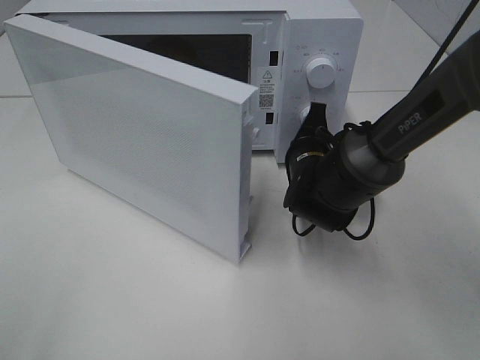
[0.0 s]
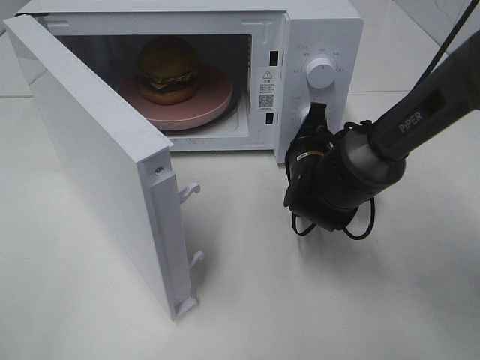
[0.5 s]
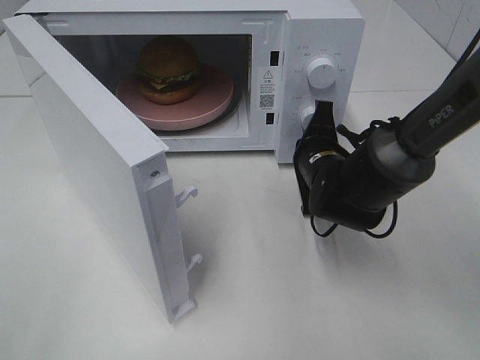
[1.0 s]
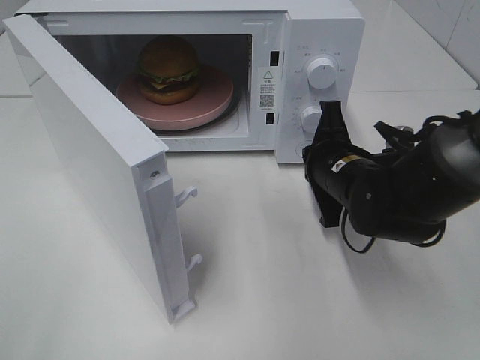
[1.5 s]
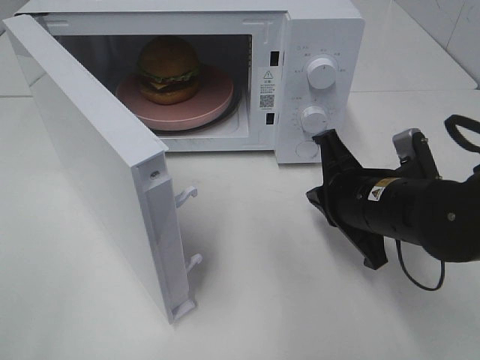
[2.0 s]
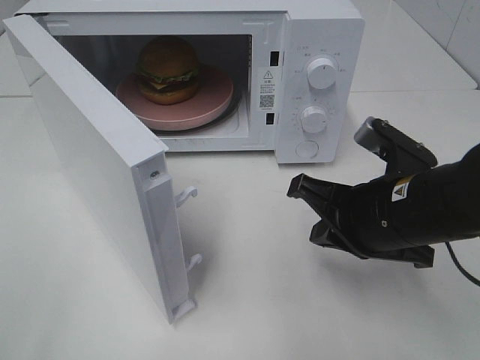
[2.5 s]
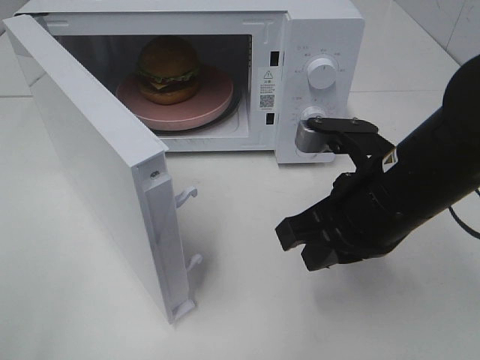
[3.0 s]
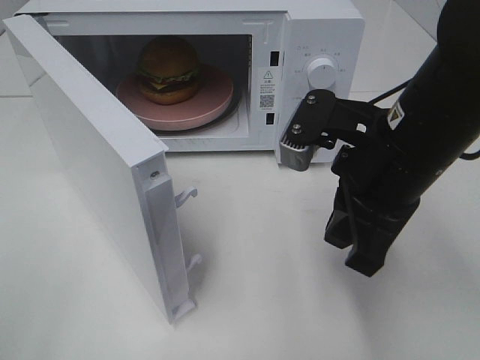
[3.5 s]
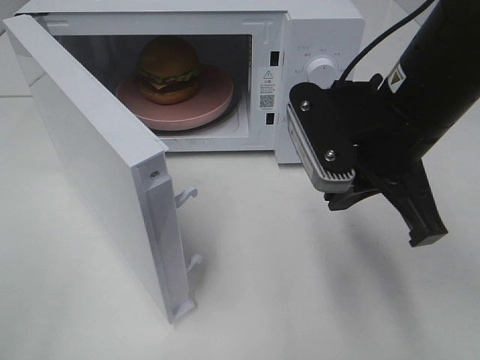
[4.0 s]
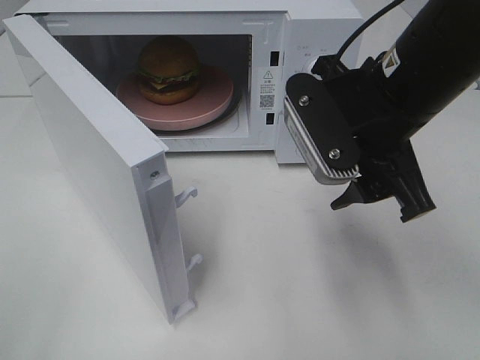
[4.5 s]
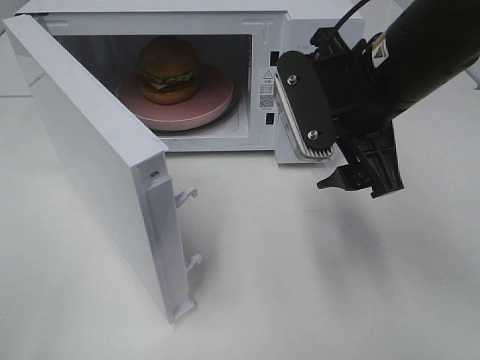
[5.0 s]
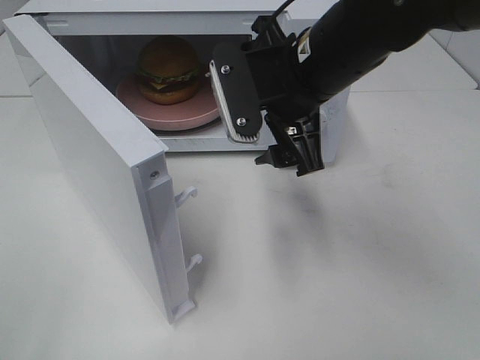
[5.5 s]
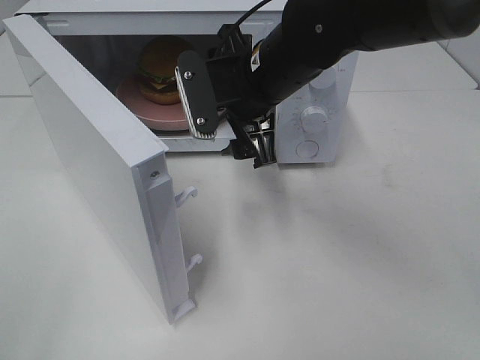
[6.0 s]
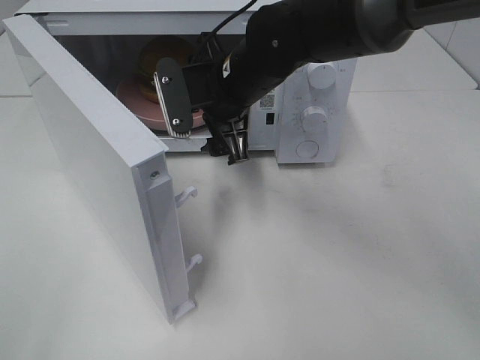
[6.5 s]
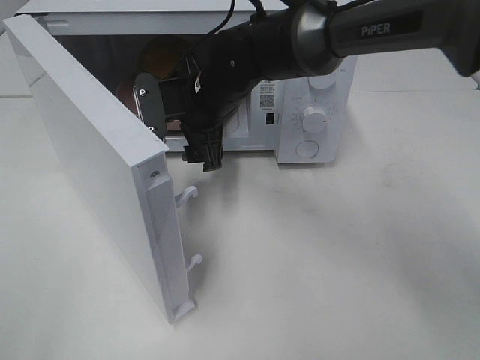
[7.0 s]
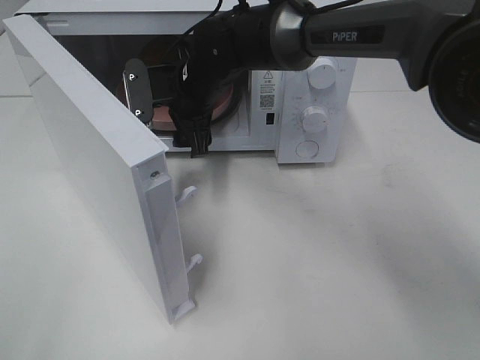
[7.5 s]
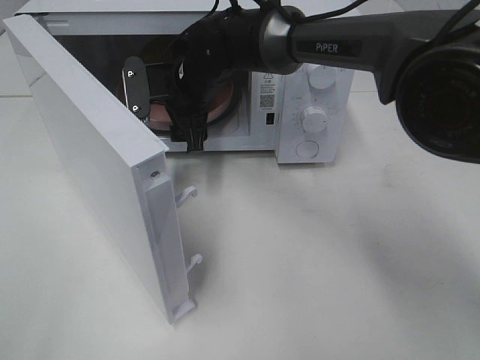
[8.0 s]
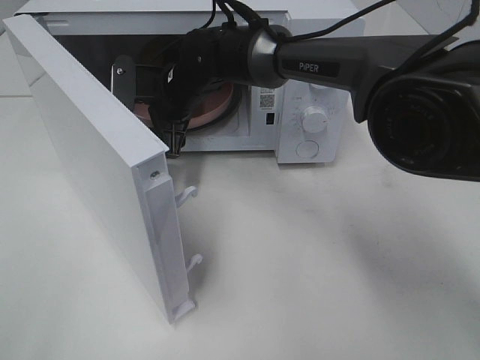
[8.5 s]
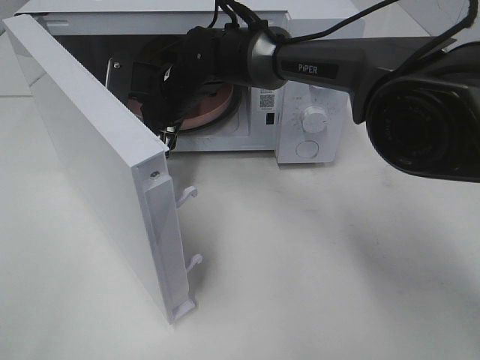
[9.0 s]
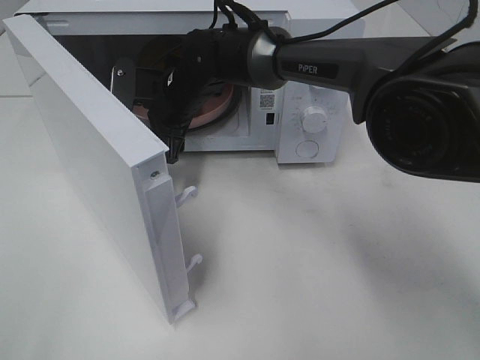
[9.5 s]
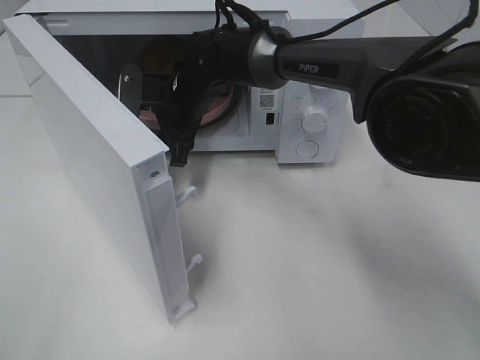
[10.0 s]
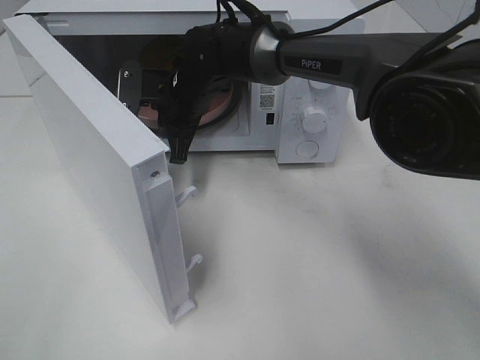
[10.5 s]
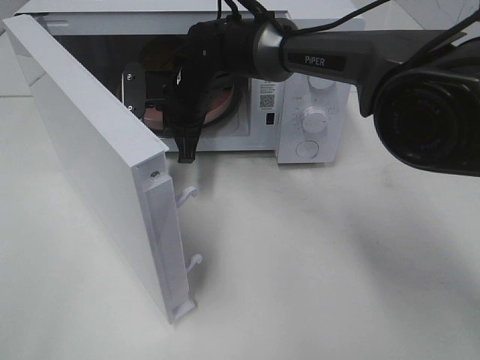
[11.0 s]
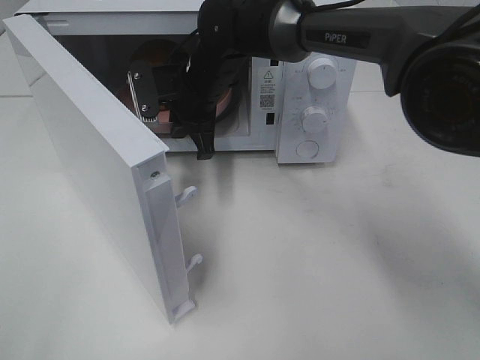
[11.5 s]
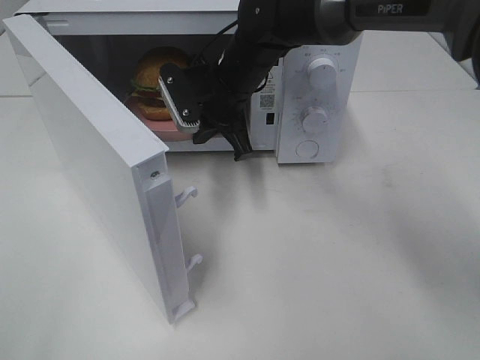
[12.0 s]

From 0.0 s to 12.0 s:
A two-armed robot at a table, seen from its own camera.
Task of the whole recording: Heat the burger.
Step, from 1.5 s to 10.0 s: Right hand: grab the plate with the hamburger.
From 0.0 s to 2.0 s: The right gripper shifts some 10 cm backward and upward.
From 2.0 s to 4.0 s: The right gripper heads upward, covering approximately 10 cm.
From 4.0 s to 6.0 s: The right gripper travels forward and to the left by some 15 cm, and opens its fingers.
From 6.0 s to 8.0 s: The right gripper shifts some 15 cm forward, to the left and downward.
From 8.0 s to 10.0 s: The grippers stay close to where they were, moving slightly.
From 10.0 s to 12.0 s: The right gripper shifts roughly 5 cm to the right, and closes.

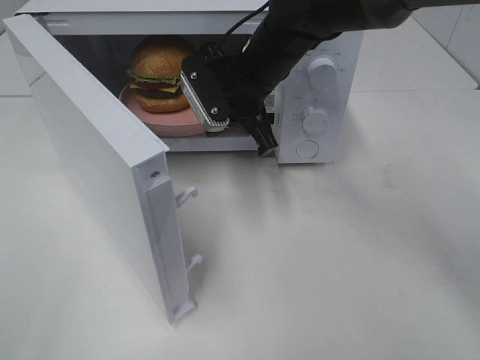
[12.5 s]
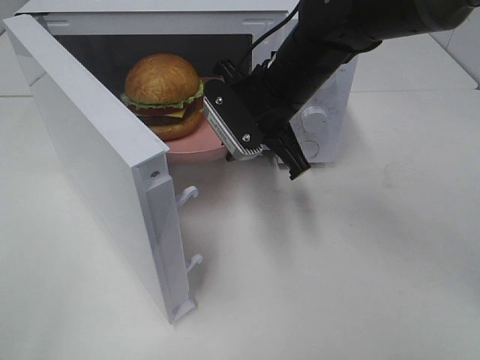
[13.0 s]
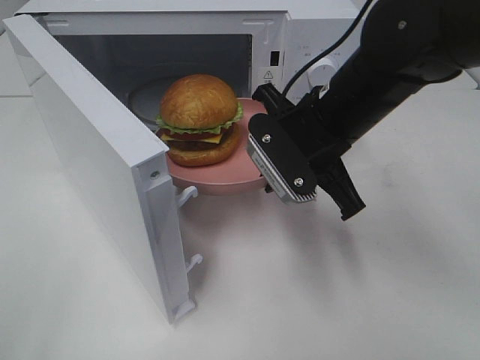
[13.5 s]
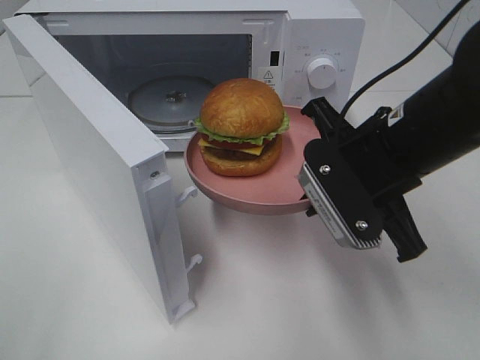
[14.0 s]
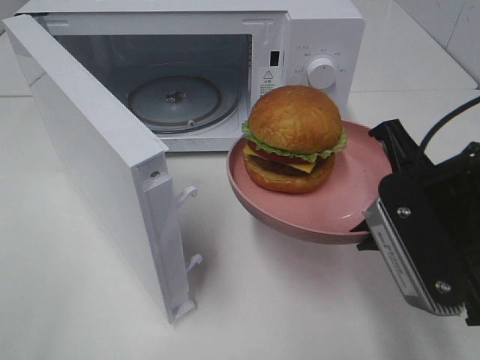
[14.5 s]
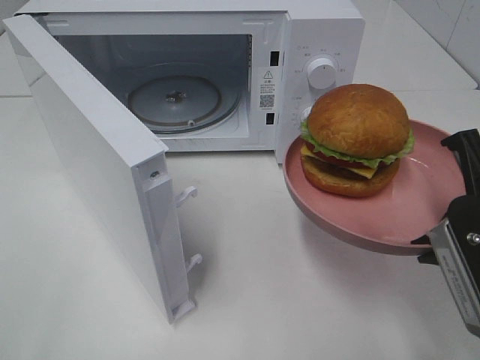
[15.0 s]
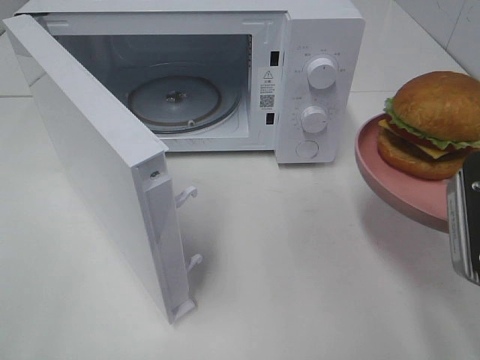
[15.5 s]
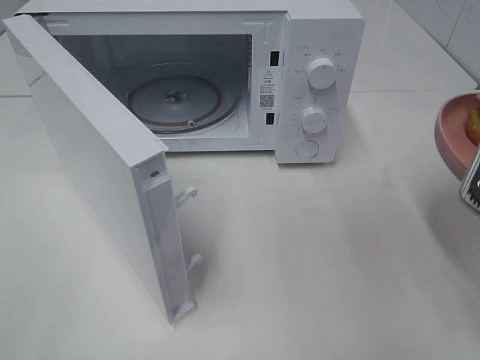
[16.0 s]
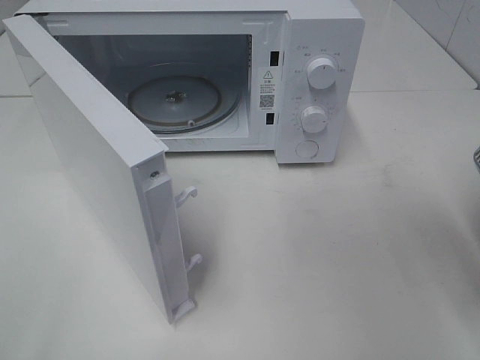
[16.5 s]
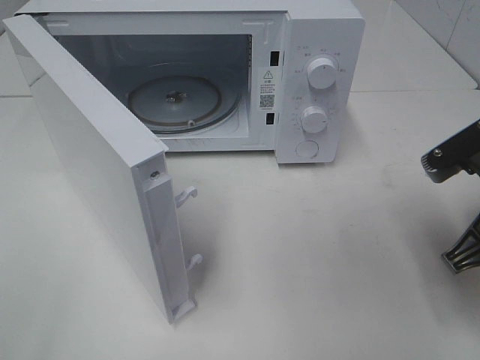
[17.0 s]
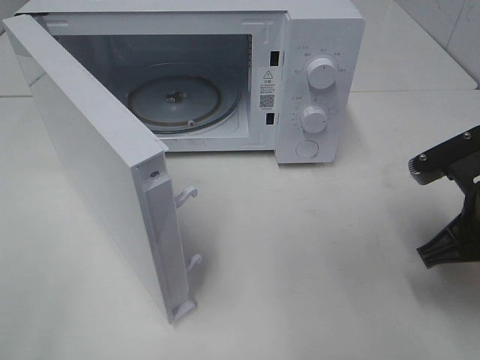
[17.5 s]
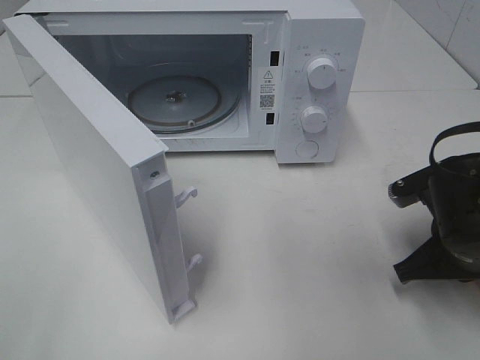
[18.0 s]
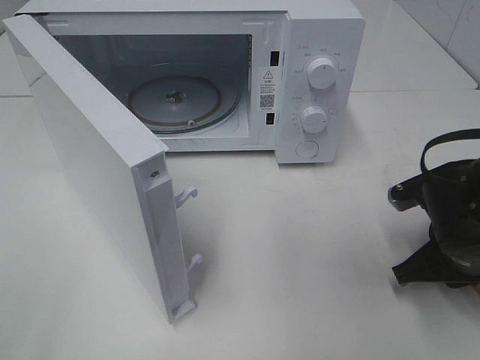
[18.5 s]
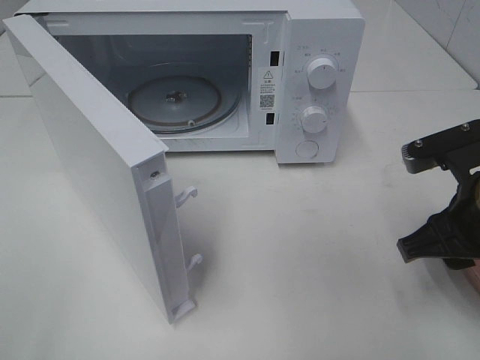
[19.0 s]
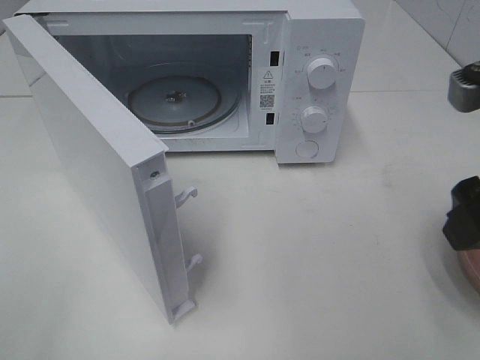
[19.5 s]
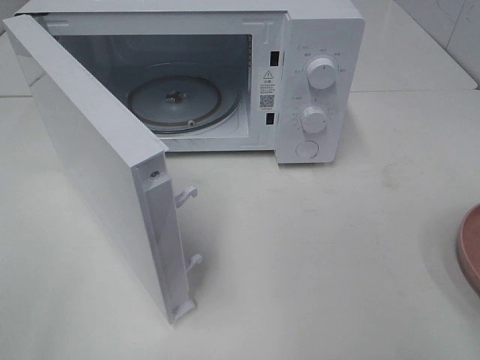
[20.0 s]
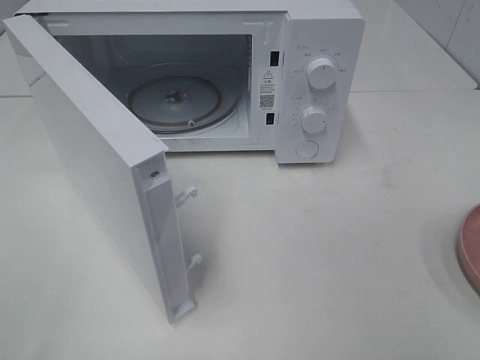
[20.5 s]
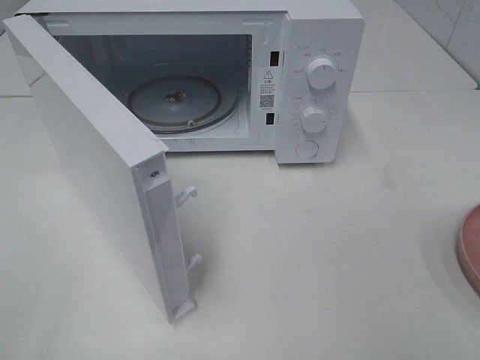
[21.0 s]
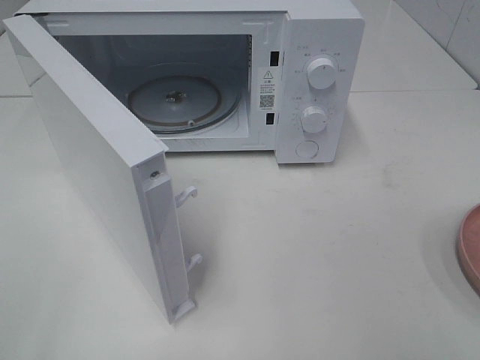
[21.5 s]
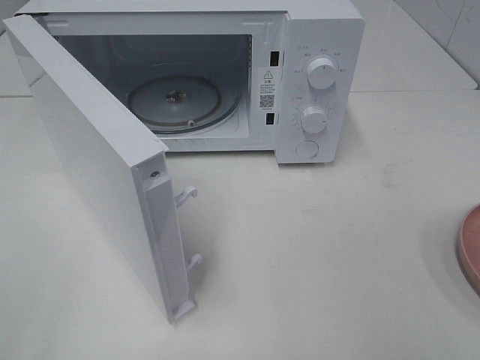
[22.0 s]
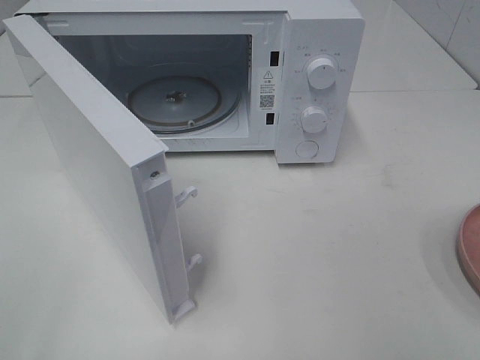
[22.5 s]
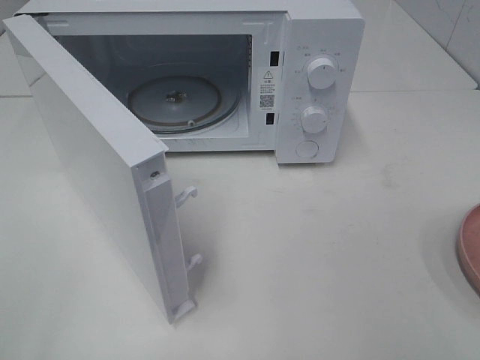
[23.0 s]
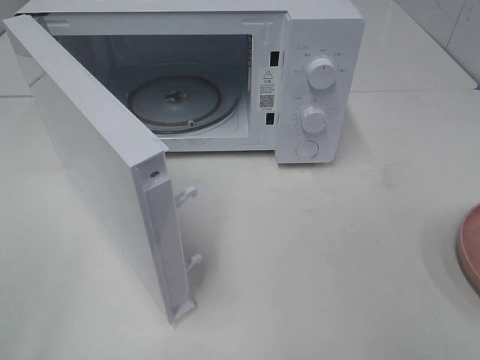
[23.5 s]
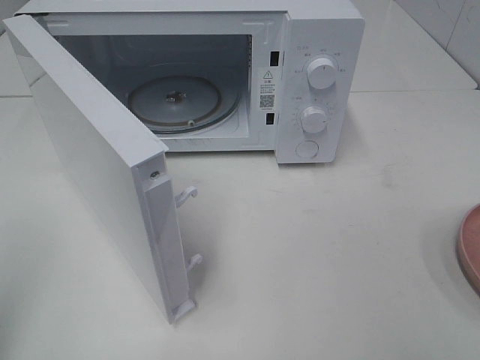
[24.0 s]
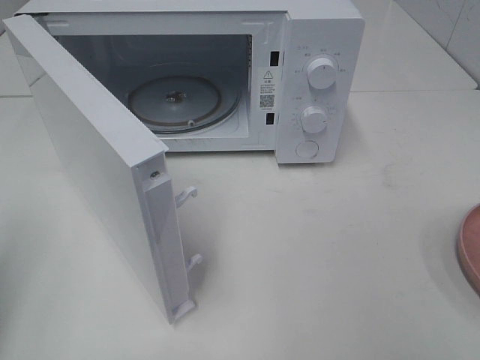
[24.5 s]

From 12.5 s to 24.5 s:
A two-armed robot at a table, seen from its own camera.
Task of the whole recording: Heat the burger.
Step, from 12.5 s to 18.5 s: Right hand: place the plate on the table.
From 12.5 s to 14.5 s: The right gripper is displaced backward and to the right by roughly 25 cm.
From 14.5 s to 16.5 s: The right gripper shifts about 5 cm to the right.
From 16.5 s to 18.5 s: The right gripper travels downward and forward by roughly 15 cm.
From 18.5 s to 20.5 s: The right gripper travels upward and backward by about 30 cm, and opens.

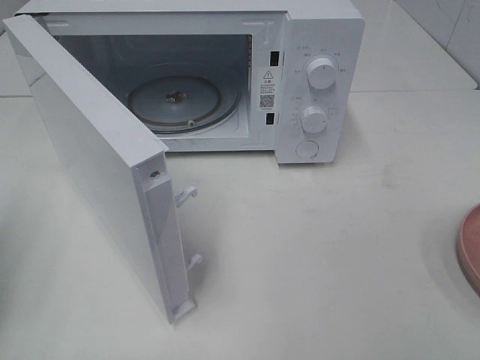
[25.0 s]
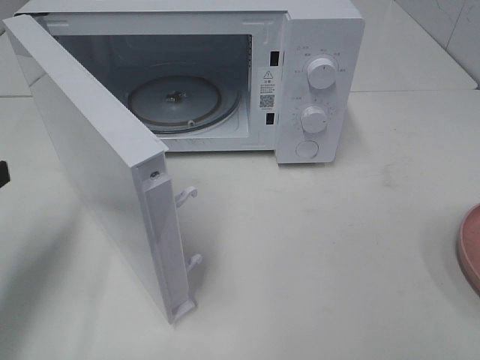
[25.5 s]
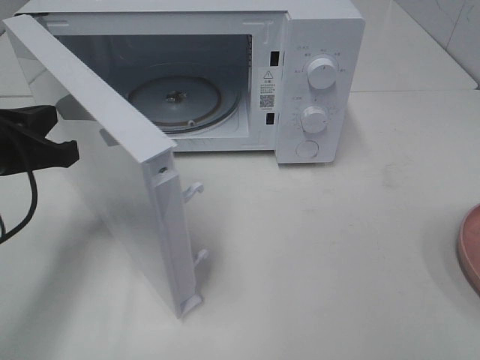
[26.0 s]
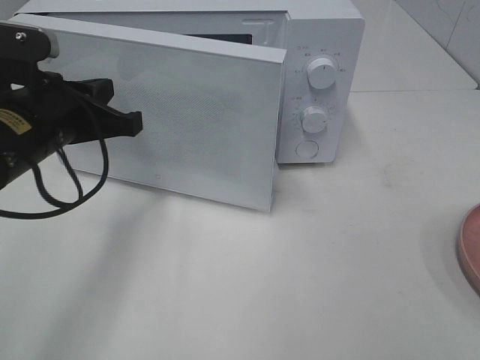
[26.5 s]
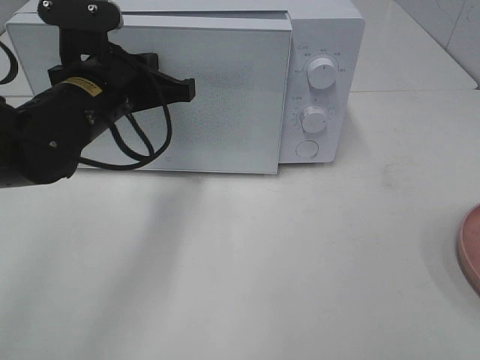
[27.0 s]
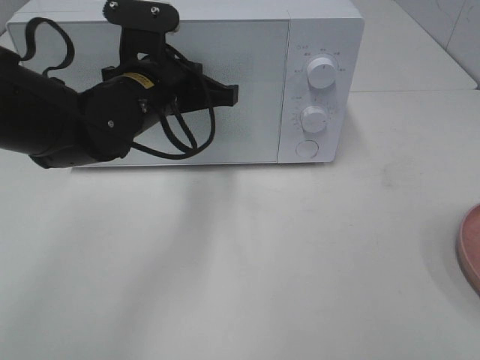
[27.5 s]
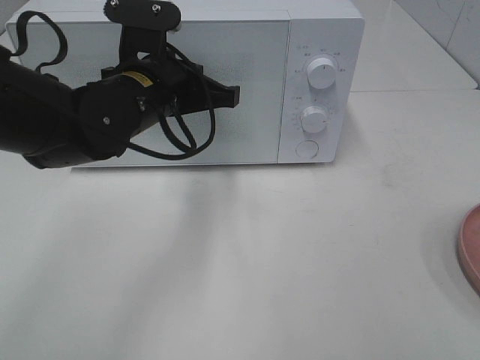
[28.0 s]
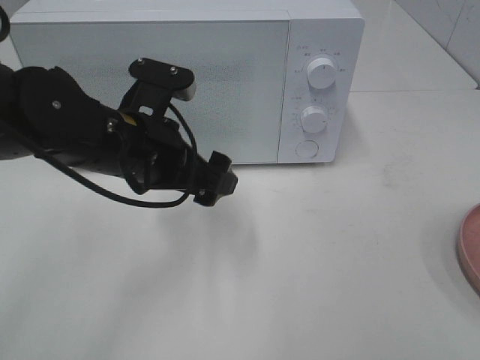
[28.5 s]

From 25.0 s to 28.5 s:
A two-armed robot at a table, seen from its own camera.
Task of the whole recording: Heat the burger.
Step, from 25.0 s to 28.0 s: Left hand: close the microwave door.
From 25.0 s to 27.0 s: The left gripper shifts about 25 cm to the right and forward.
From 27.0 s to 28.5 s: The left gripper shifts by some 5 cm, and opens.
